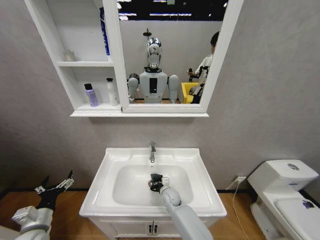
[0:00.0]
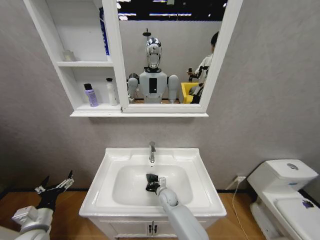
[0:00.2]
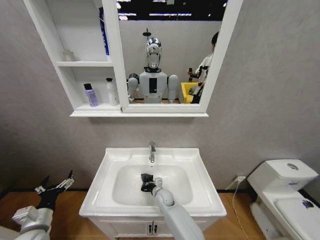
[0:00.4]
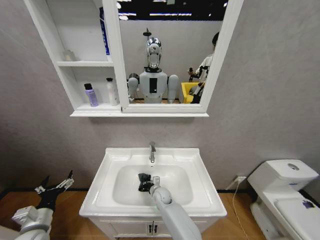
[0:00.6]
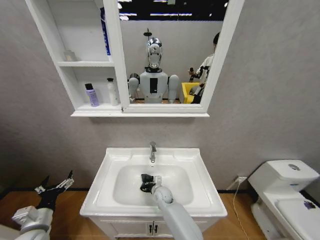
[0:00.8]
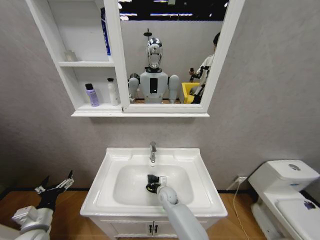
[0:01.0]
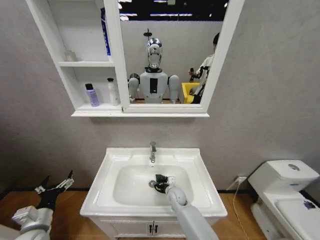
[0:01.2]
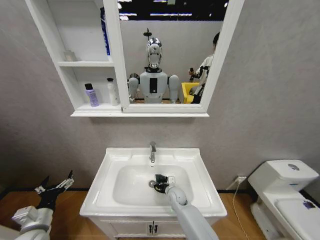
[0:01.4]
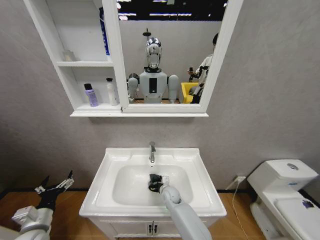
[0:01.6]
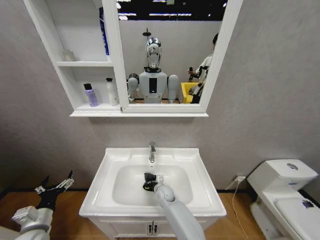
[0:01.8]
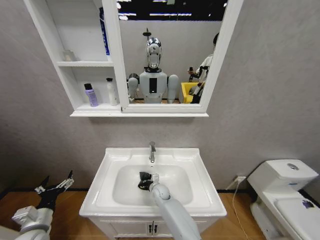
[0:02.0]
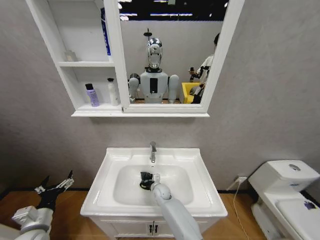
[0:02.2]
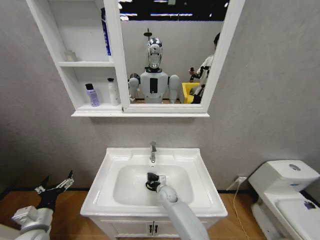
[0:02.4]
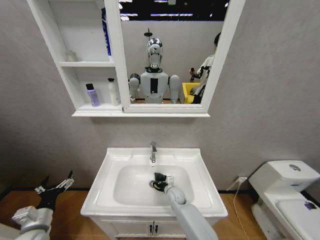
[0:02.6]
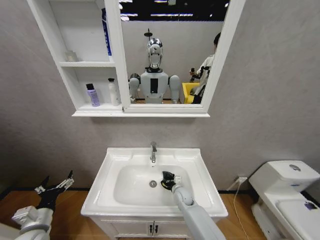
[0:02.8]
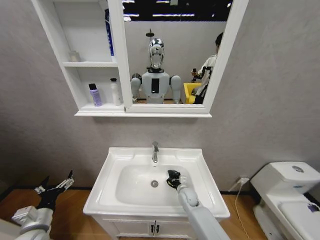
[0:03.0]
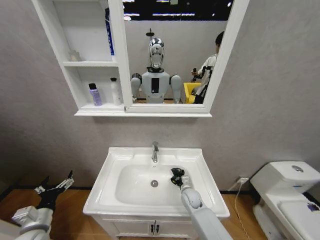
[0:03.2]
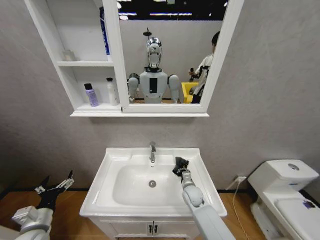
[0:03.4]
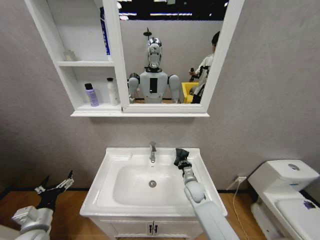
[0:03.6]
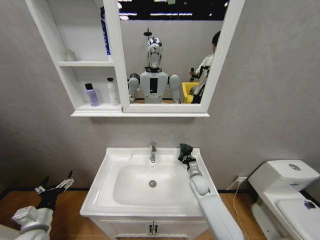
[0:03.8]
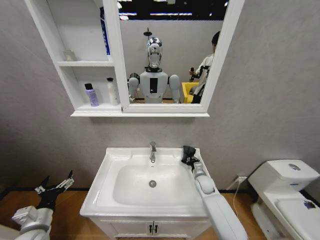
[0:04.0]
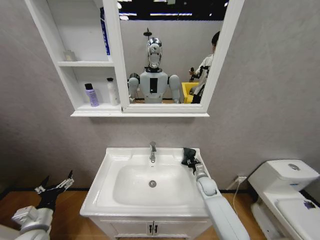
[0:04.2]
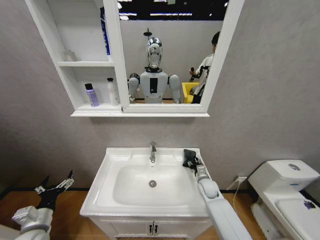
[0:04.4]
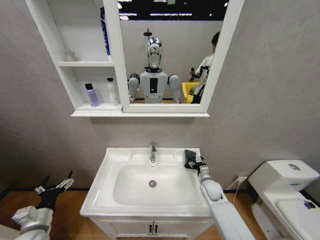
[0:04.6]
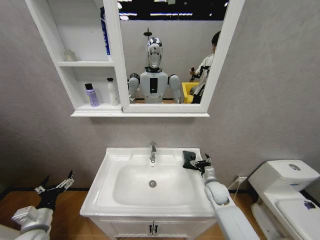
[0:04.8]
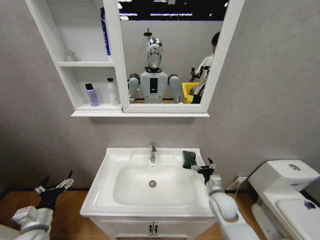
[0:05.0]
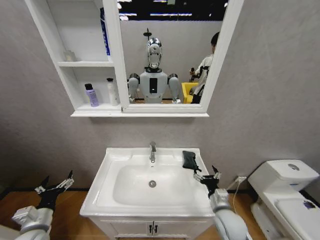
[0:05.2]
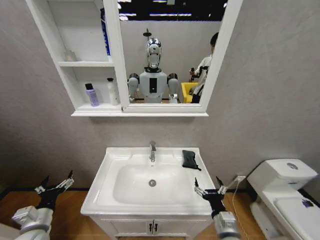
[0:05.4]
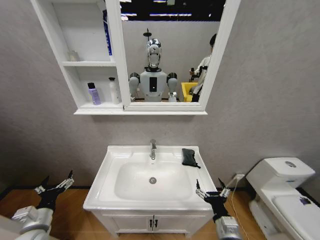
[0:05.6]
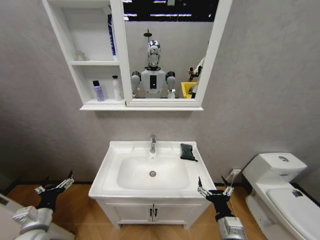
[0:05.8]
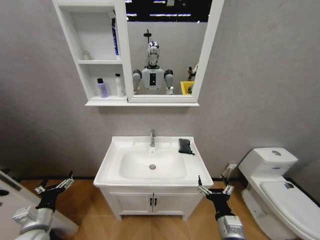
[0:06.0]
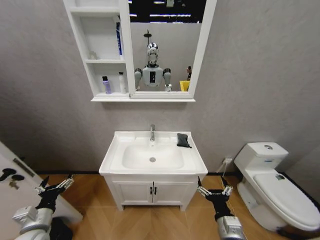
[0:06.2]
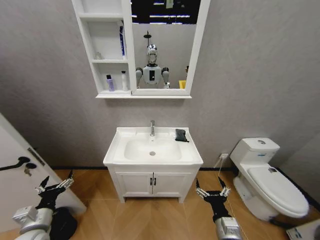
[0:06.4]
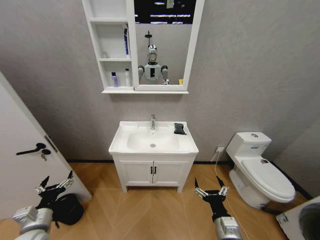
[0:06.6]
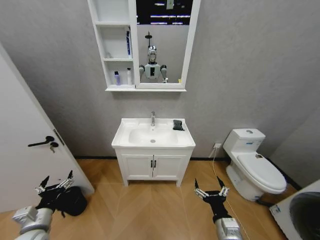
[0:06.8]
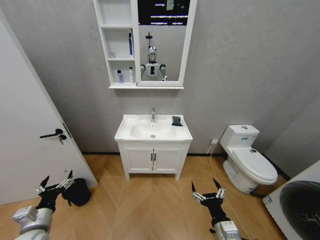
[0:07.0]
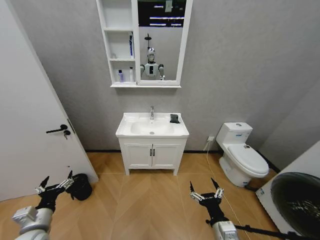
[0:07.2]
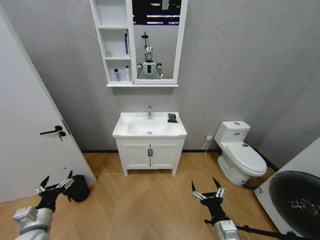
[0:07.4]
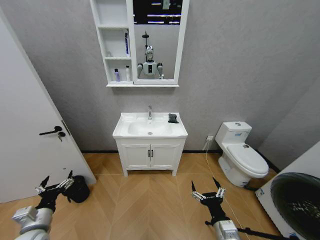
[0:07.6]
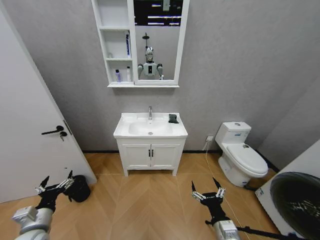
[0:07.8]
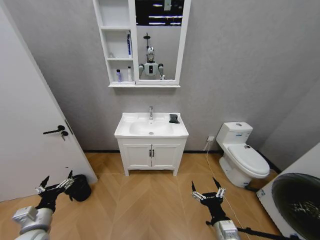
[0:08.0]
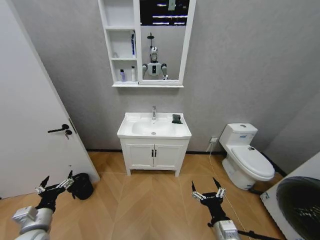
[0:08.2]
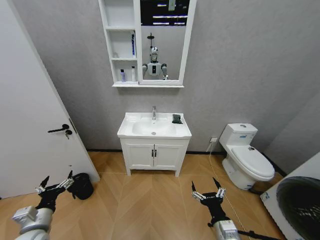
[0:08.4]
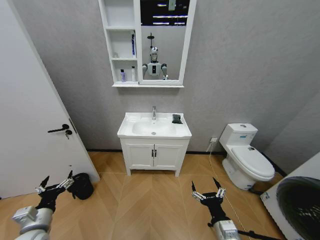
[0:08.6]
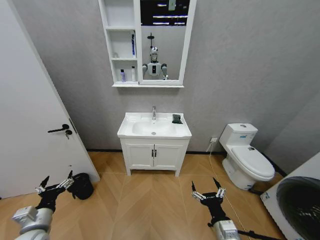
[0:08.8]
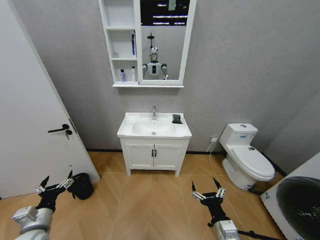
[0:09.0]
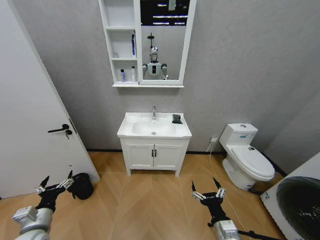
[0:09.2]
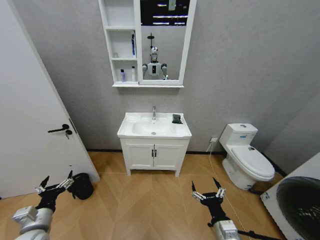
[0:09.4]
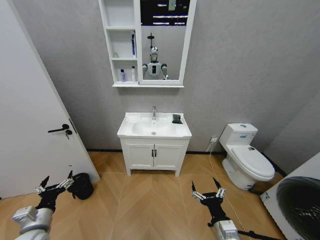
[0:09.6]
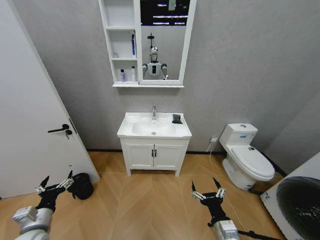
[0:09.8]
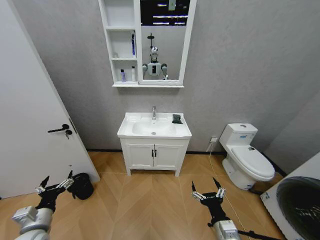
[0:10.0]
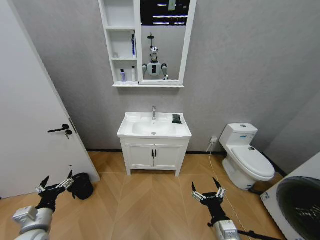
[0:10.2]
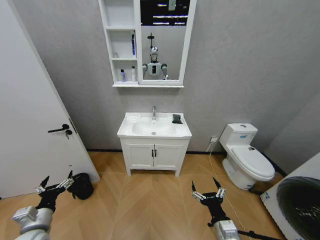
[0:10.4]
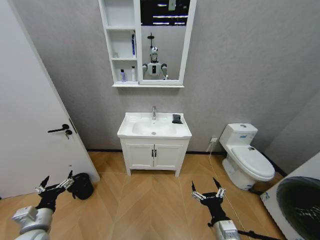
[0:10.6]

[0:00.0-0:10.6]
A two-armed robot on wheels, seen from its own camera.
Task of the whole recording: Move facial cleanser and shampoo from washbasin to cabinet, then wipe washbasin with towel.
0:01.6 to 0:03.0: The right gripper goes some 10 cm to the right.
0:03.0 to 0:04.6: The right gripper moves to the right and upward, approximately 15 cm, and opens up.
0:04.6 to 0:06.0: The right gripper goes some 25 cm backward.
0:07.6 to 0:10.6: Both grippers stay put.

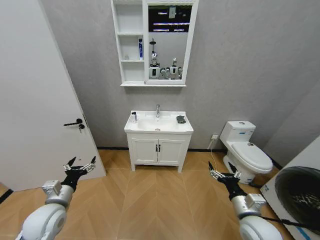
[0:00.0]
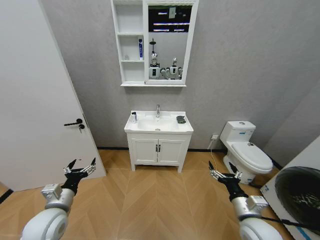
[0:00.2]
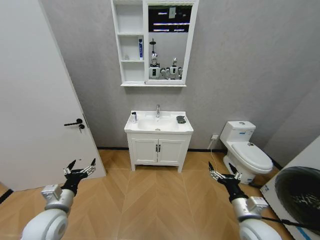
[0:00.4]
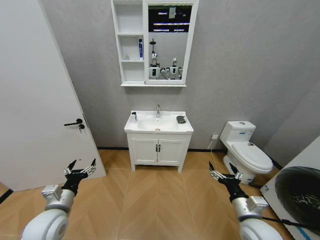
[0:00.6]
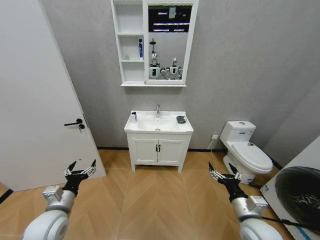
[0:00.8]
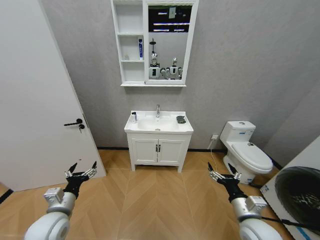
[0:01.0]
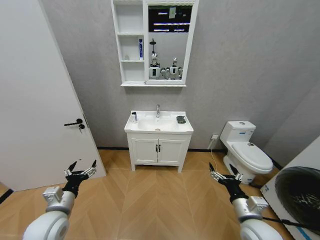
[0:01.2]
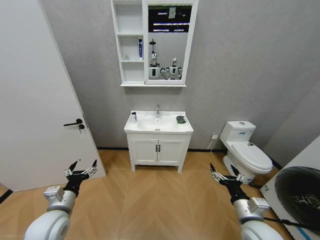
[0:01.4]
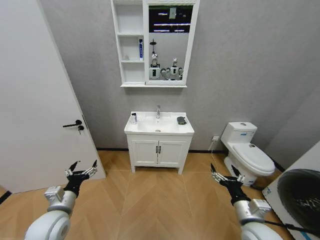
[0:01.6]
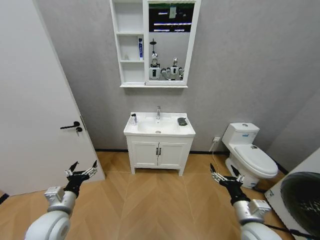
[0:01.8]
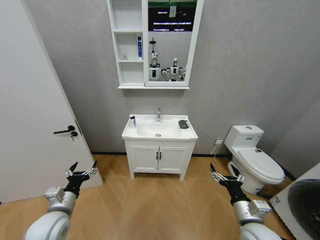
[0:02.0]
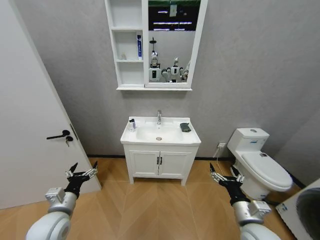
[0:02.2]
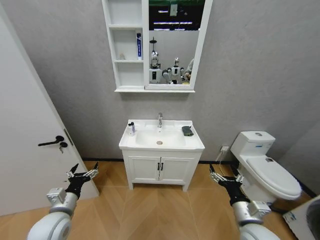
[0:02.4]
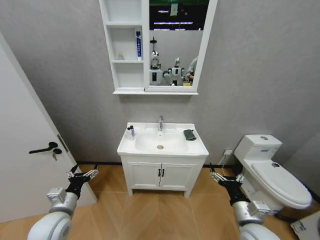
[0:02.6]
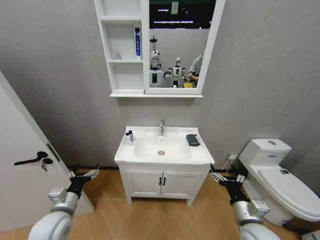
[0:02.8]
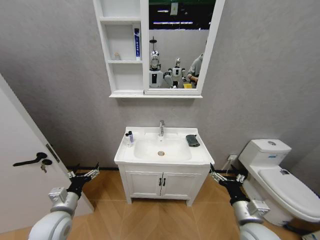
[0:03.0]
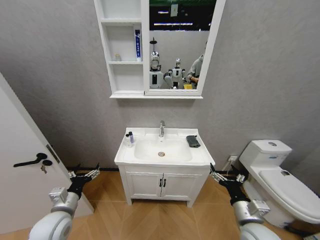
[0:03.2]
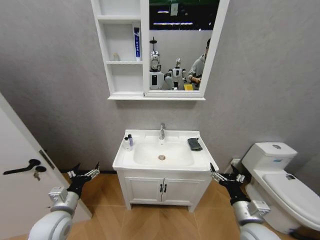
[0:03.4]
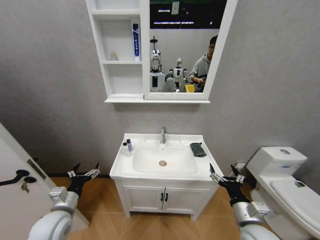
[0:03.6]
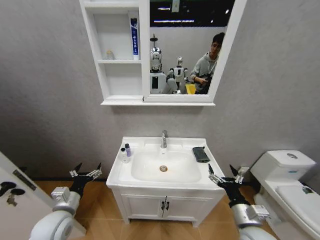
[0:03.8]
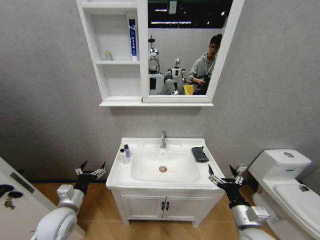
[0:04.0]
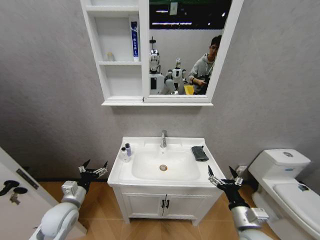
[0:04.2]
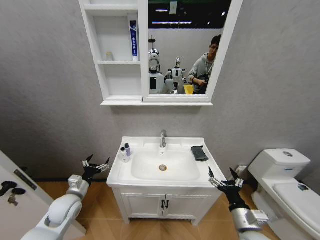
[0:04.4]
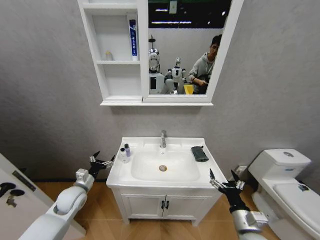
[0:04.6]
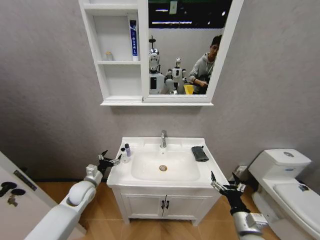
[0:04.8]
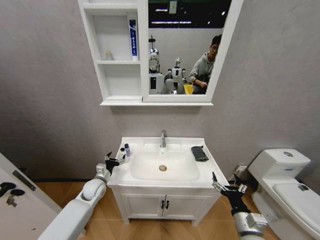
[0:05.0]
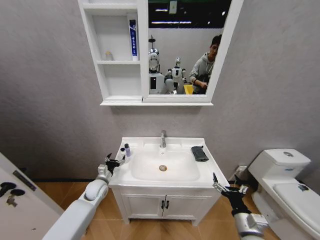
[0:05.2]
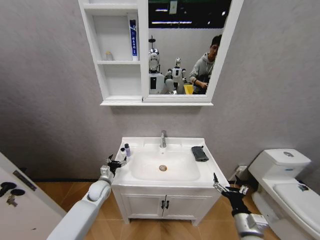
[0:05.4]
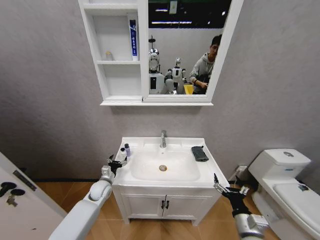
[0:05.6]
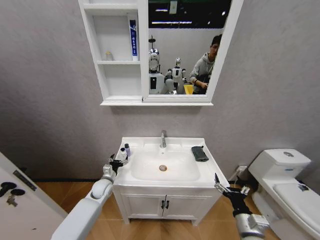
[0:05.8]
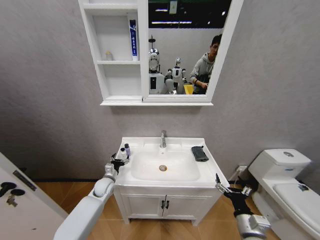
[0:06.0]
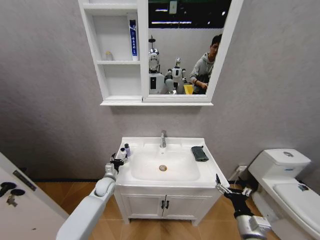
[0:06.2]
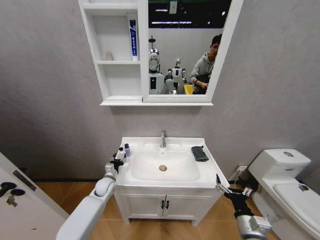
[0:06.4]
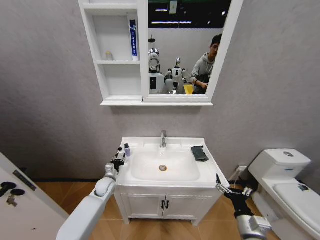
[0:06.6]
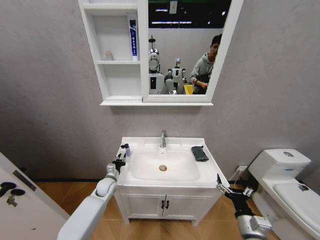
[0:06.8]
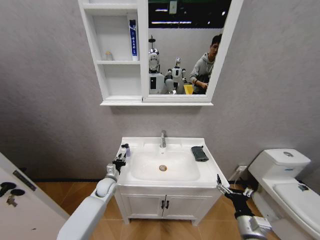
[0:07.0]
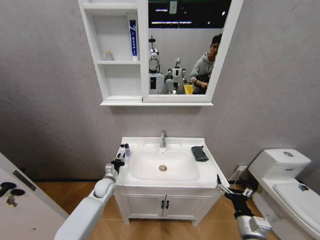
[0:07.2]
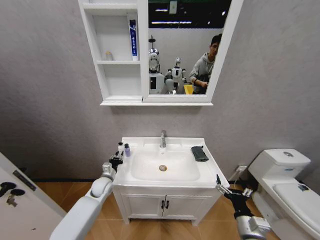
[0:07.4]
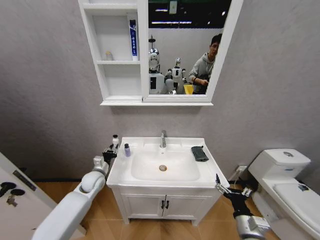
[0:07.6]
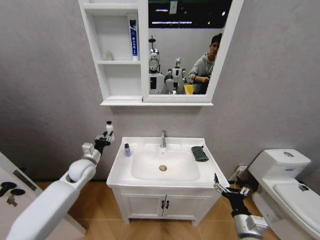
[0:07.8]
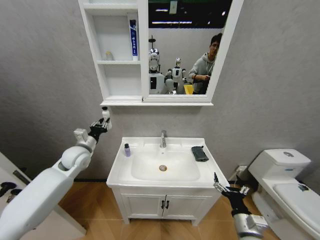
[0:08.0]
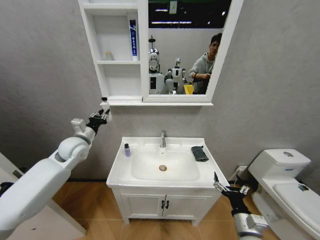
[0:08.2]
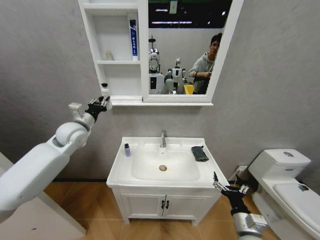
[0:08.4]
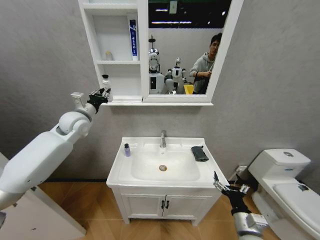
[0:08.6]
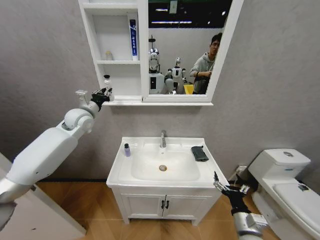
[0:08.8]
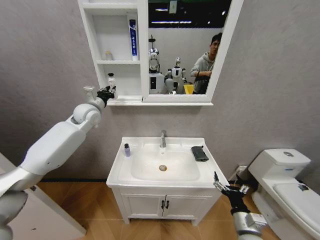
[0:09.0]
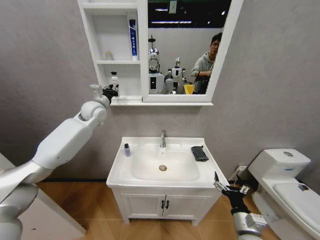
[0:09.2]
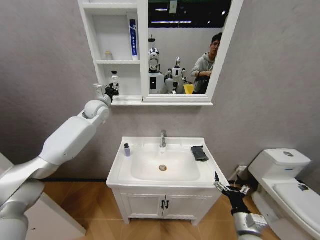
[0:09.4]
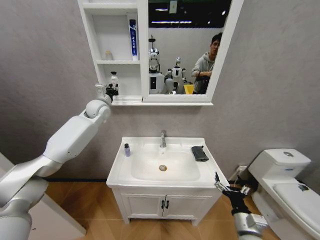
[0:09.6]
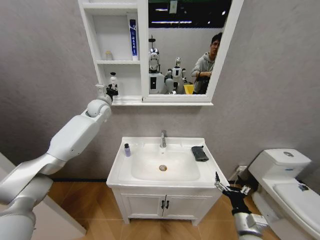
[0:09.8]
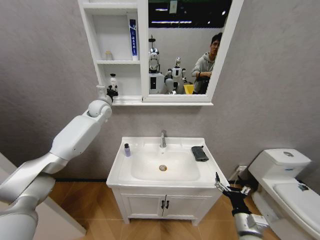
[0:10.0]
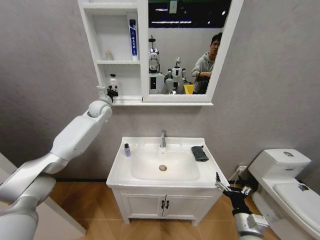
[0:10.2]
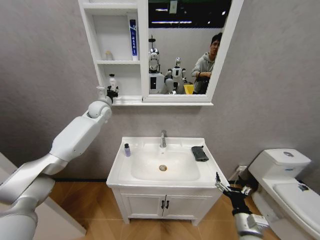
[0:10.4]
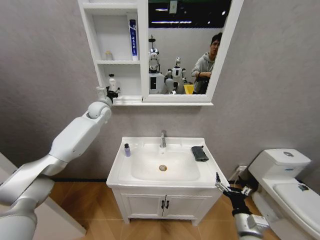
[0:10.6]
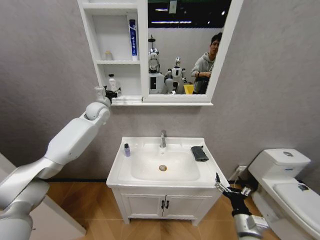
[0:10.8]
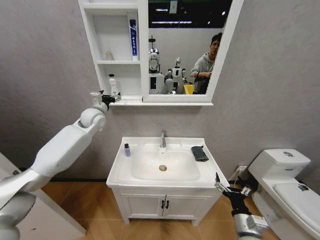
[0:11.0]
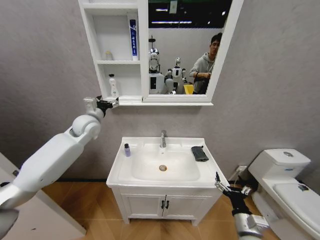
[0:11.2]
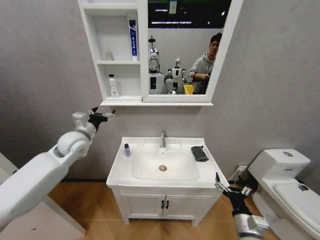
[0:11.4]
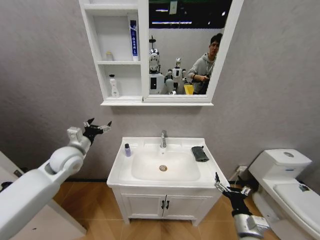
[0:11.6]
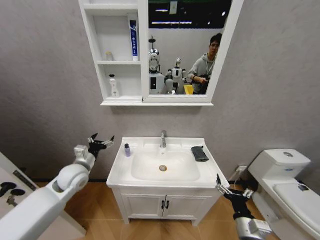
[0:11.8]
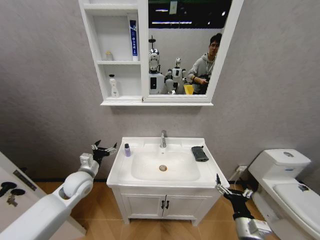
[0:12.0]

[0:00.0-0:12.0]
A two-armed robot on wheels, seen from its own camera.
Task of the whole recording: Move facial cleanser and shampoo from washbasin to cabinet, then wipe washbasin with towel.
0:03.0 to 0:04.4: The left gripper travels forward by about 5 cm.
0:04.4 to 0:06.0: The left gripper heads forward, to the right and downward, covering approximately 15 cm.
0:06.0 to 0:07.6: The left gripper goes some 5 cm upward, and closes its fingers.
0:07.6 to 0:09.0: The left gripper travels upward and forward by about 30 cm.
0:09.0 to 0:10.4: The left gripper shifts some 5 cm forward.
0:10.4 to 0:12.0: The left gripper travels backward and downward by approximately 35 cm, and opens its fingers.
